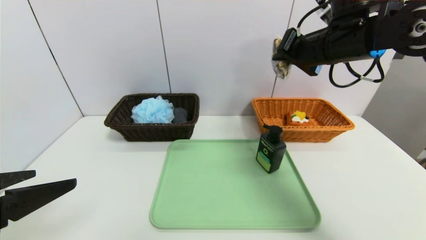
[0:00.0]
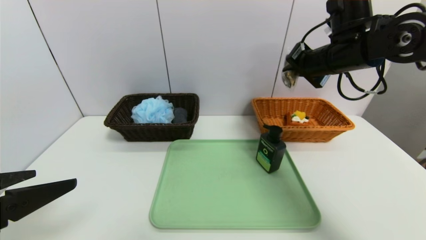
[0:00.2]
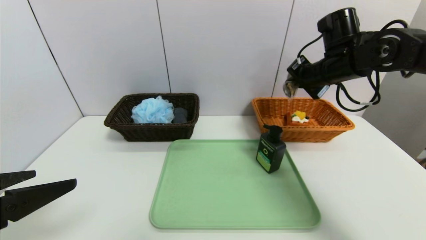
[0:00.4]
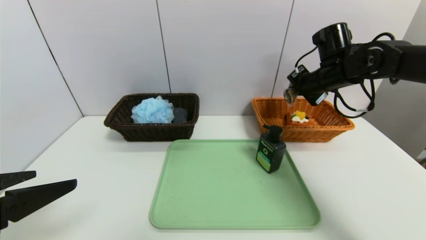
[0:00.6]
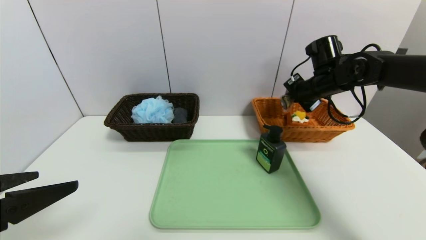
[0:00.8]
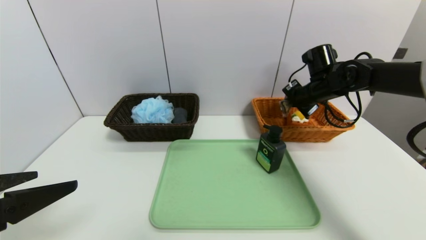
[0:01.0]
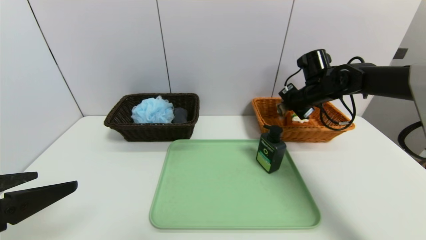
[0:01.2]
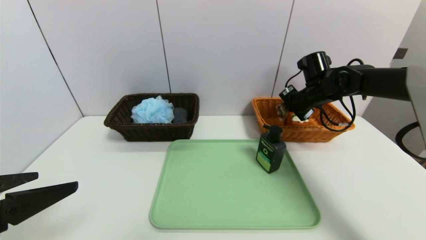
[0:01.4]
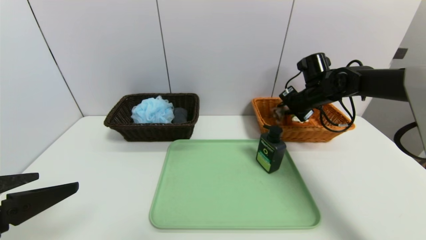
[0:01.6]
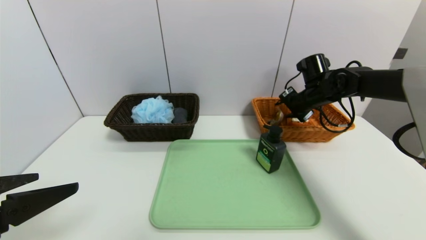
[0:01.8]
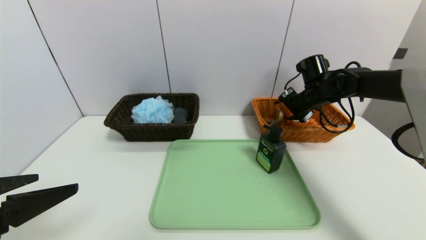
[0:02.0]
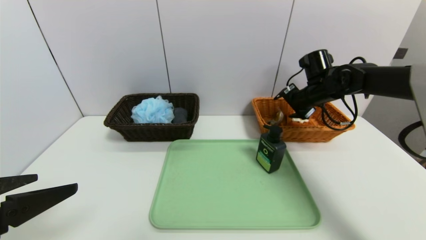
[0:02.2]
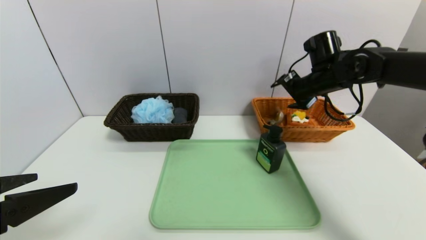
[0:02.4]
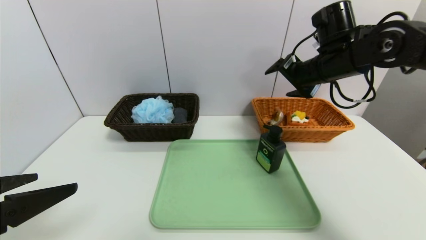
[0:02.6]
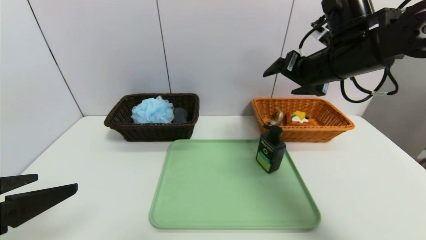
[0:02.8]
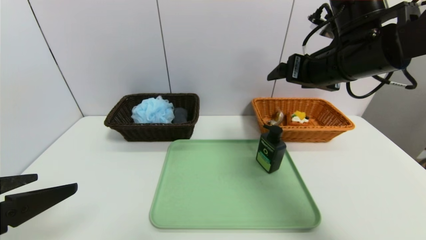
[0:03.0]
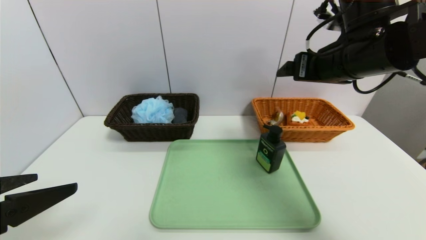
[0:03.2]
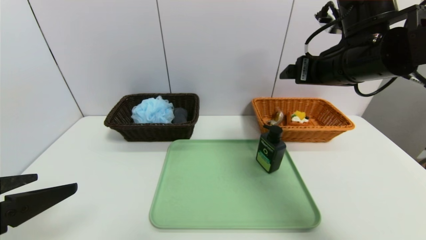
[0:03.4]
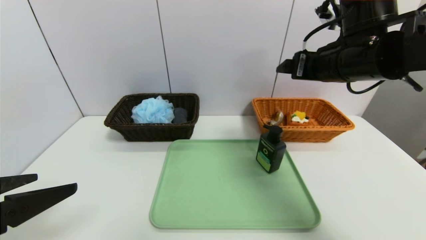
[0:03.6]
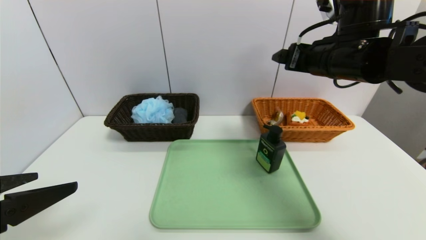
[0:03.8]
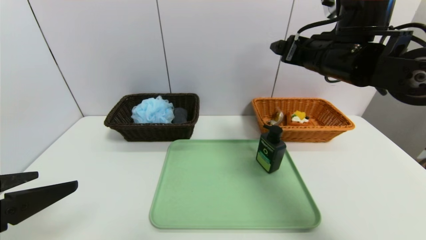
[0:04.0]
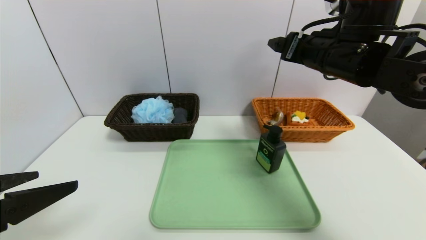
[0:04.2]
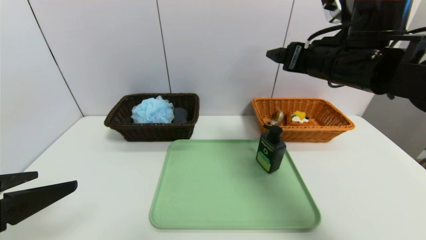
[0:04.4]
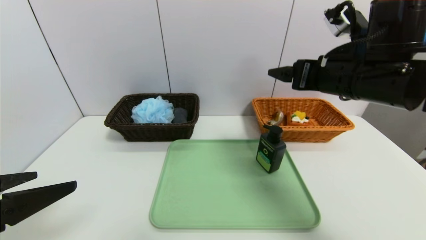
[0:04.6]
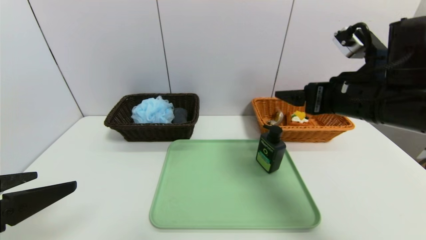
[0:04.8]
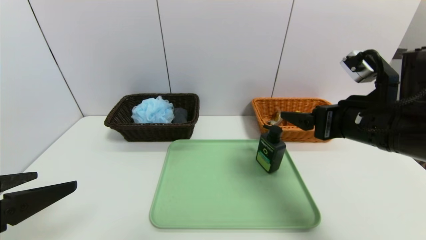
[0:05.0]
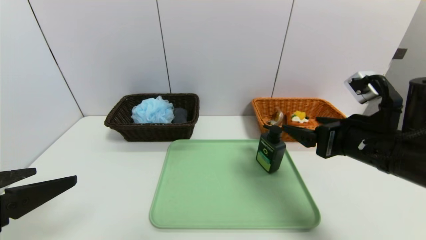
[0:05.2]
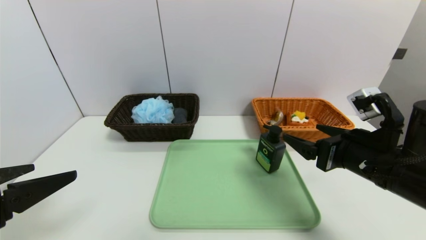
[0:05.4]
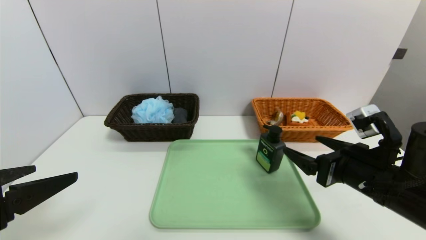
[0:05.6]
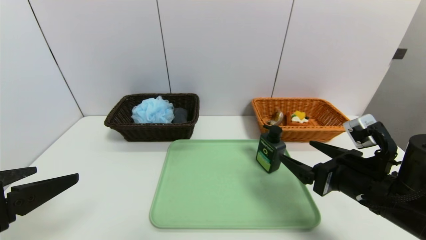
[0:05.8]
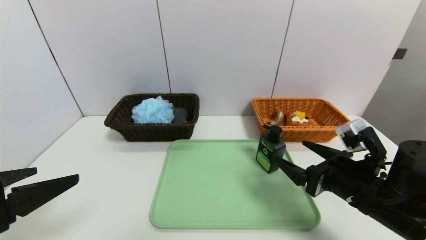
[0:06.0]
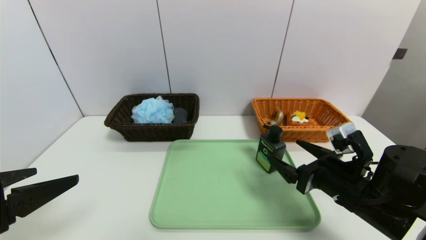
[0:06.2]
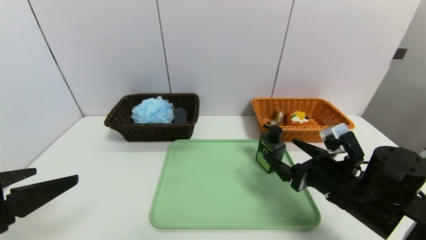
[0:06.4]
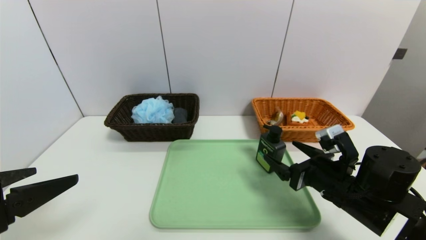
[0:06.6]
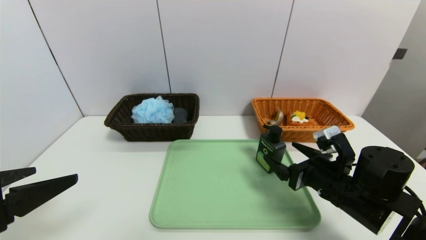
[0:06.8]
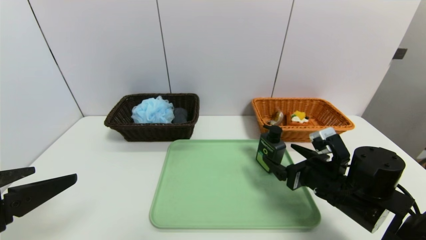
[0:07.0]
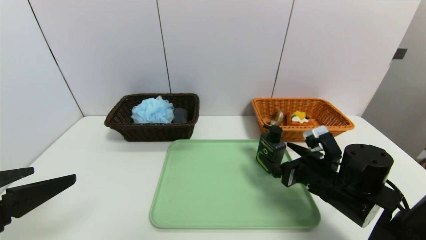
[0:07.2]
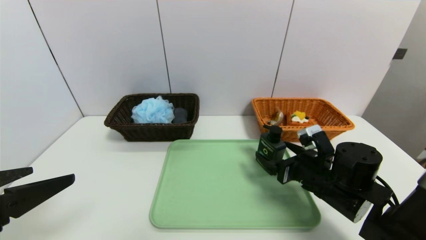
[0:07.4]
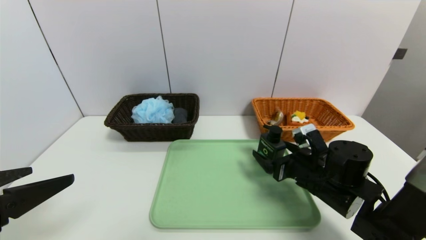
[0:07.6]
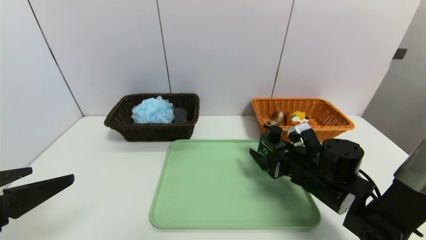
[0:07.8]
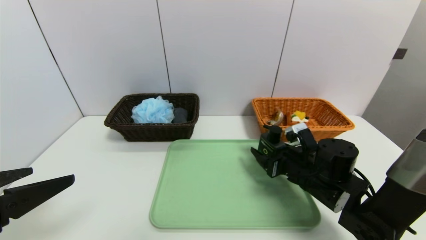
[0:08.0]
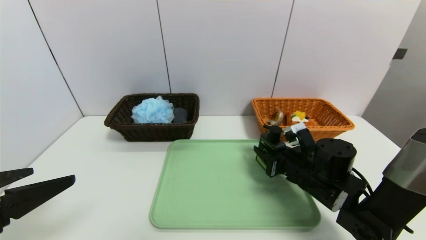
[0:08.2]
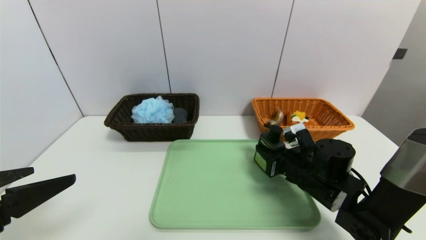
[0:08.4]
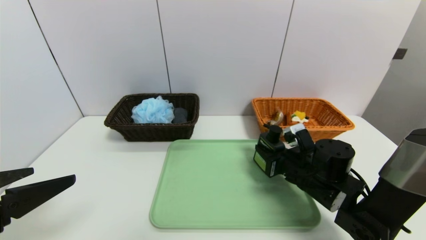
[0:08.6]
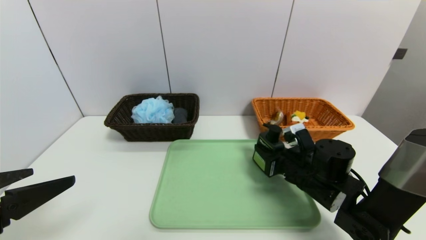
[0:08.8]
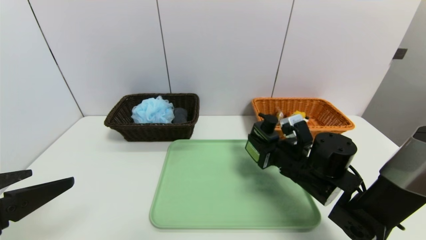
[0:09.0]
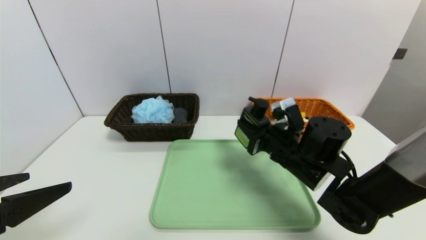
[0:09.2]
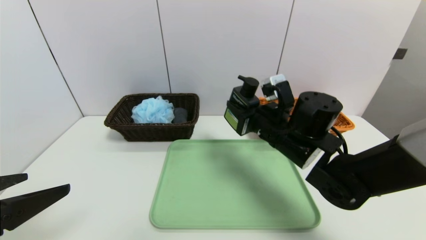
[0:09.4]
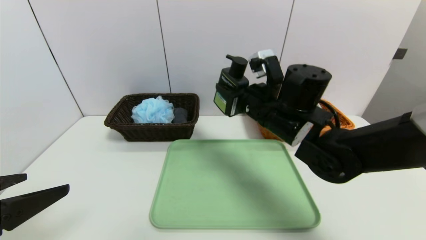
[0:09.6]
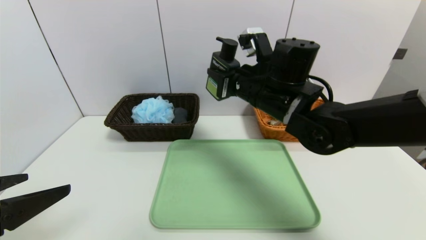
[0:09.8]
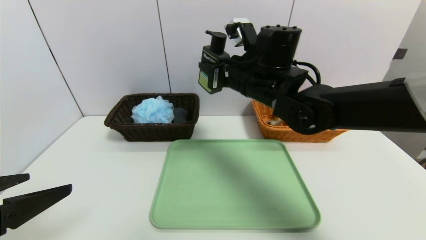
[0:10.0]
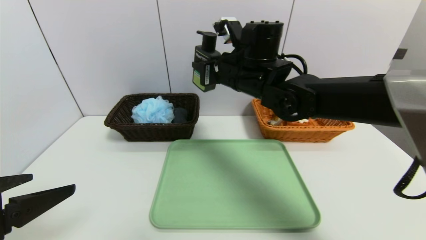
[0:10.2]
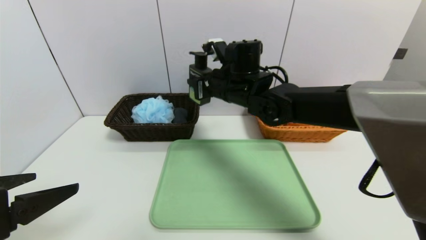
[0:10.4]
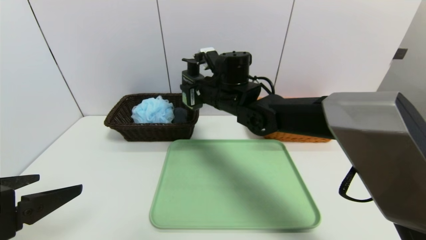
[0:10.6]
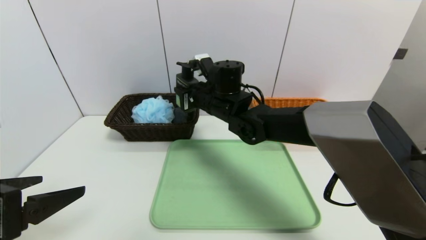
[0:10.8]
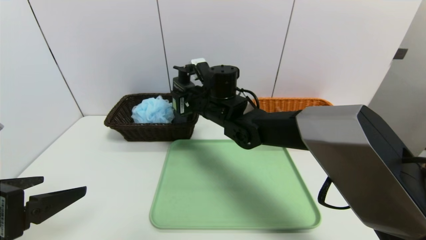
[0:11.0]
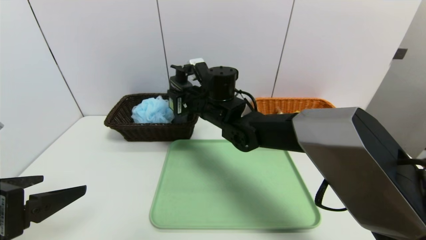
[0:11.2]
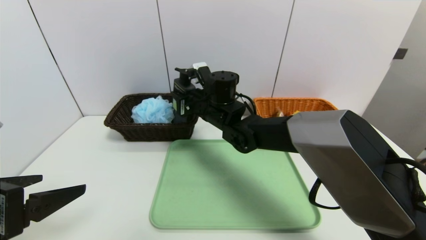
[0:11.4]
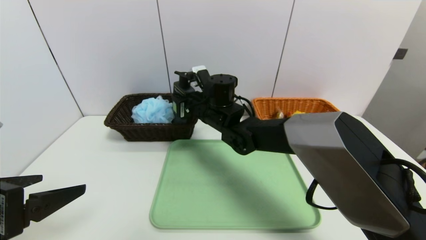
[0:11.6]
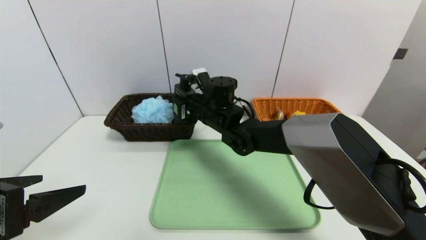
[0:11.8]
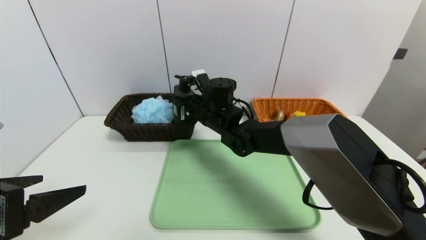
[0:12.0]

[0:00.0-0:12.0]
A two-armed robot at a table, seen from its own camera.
Task of the whole recording: place the food in the right basket with the right gripper, and place the non food items in the left basket with the left gripper.
Step, 0:00.0 to 0:02.4: Grasp the chocolate and put it in the right basket.
0:00.0 to 0:01.6: The right gripper travels downward and forward by roughly 15 cm.
0:01.6 to 0:03.0: The right gripper shifts some 20 cm backward and upward, and opens.
0:04.4 to 0:06.0: The right gripper is displaced downward and backward by approximately 20 cm.
0:06.0 to 0:07.6: The right gripper shifts roughly 10 cm forward and downward.
0:07.6 to 0:09.0: The right gripper closes up.
0:09.0 to 0:10.4: The right gripper goes some 20 cm to the left, upward and forward.
0:10.4 to 0:12.0: The right gripper shifts approximately 5 cm downward.

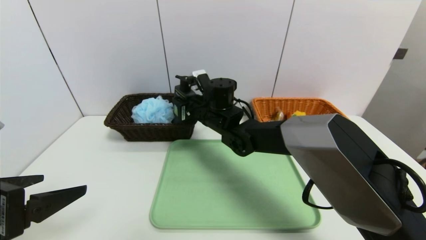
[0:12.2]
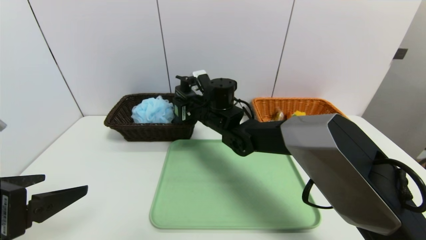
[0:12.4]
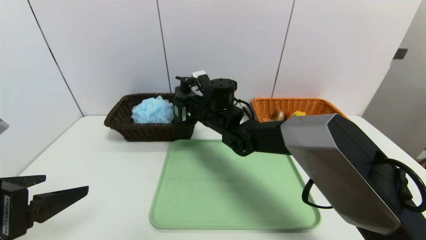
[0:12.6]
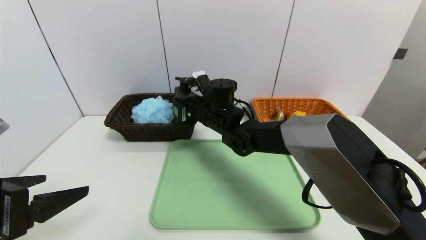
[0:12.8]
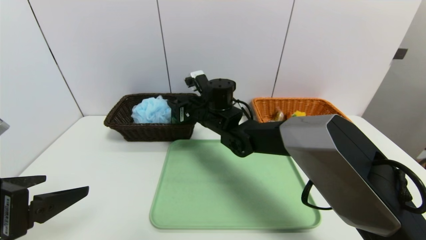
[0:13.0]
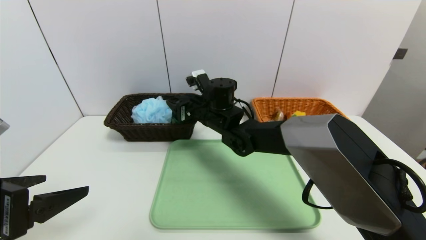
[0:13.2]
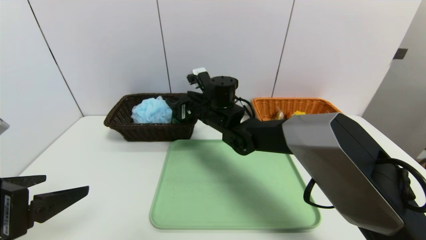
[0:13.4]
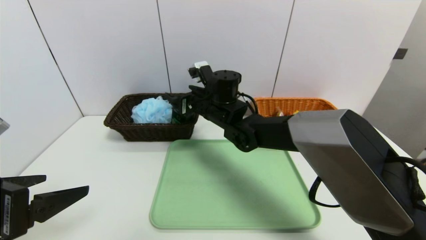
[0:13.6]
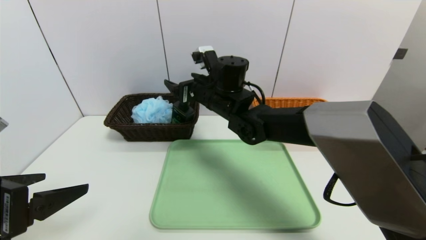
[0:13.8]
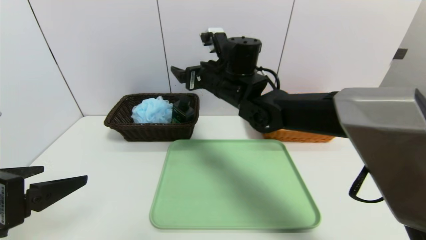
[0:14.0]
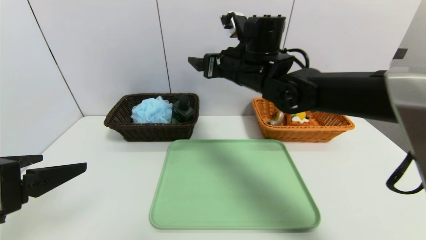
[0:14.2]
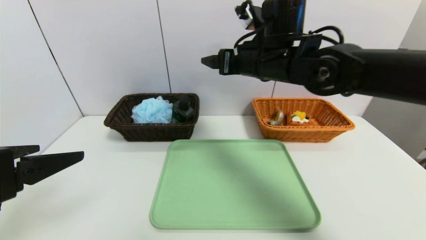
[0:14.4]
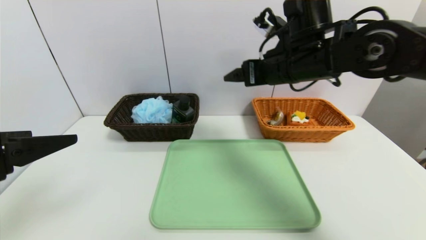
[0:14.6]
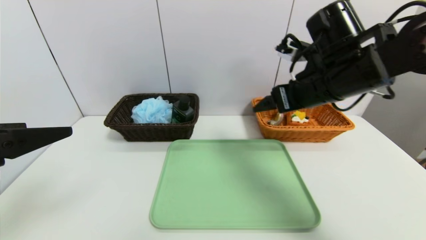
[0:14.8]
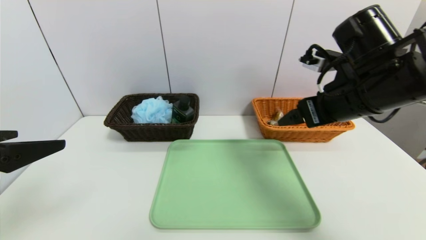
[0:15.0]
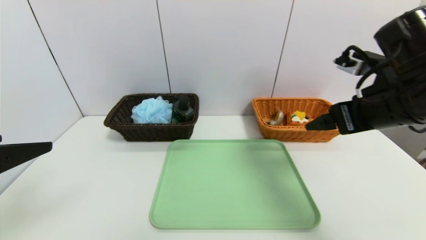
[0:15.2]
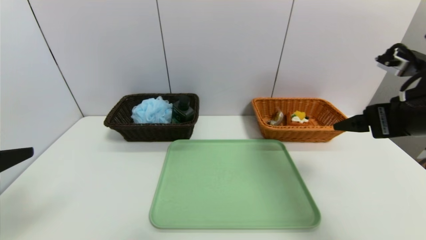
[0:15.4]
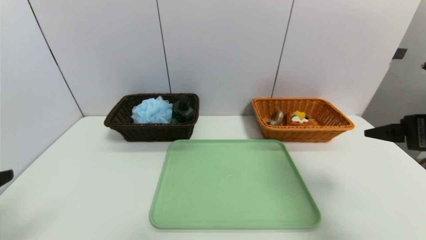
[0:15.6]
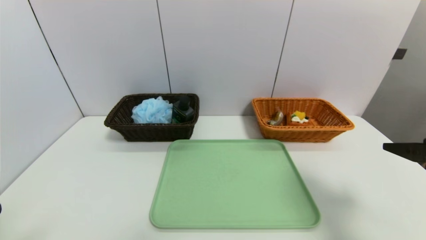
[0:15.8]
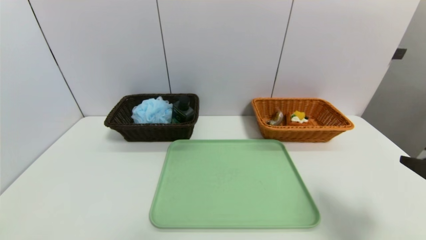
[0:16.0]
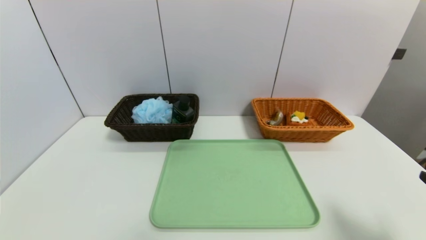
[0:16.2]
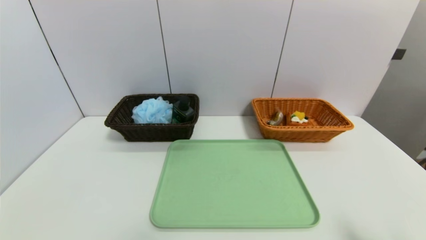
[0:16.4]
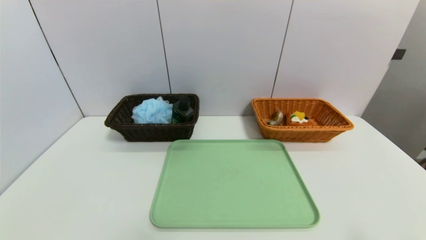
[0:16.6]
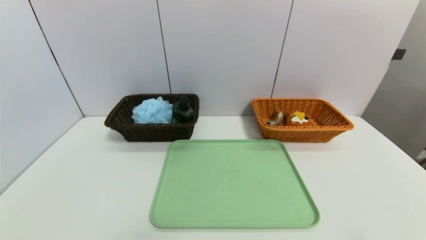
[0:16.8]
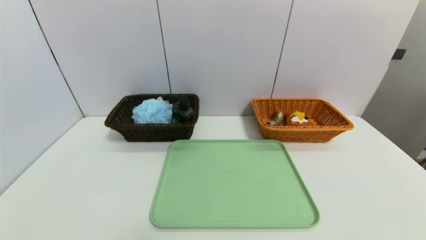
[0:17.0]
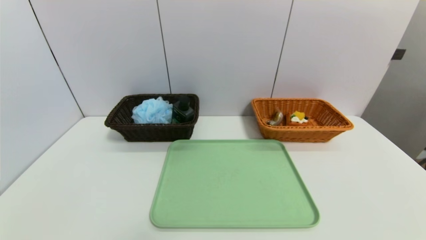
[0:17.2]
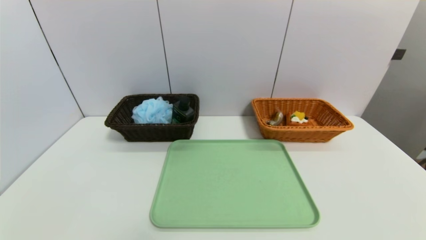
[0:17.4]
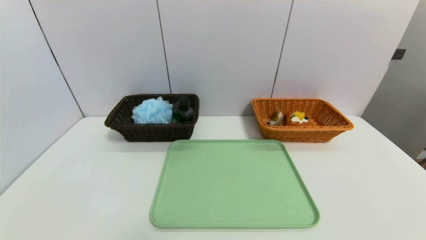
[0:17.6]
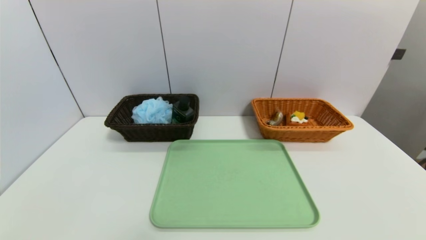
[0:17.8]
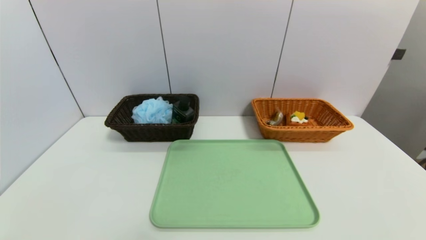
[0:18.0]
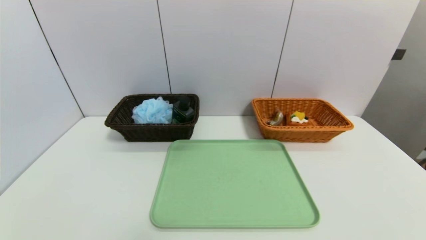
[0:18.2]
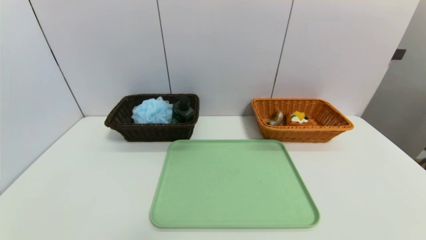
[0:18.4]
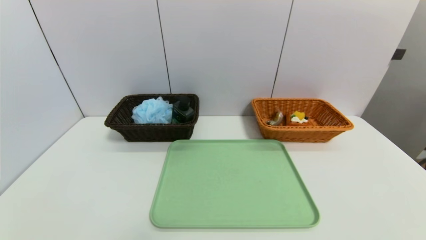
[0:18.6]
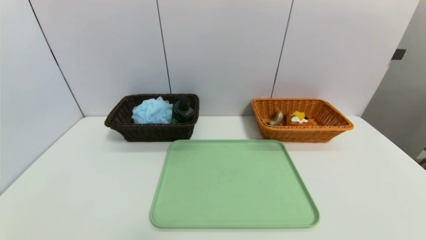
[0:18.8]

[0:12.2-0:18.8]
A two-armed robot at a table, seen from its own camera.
Task of the whole recording: place the food in the right basket with the right gripper, and place the non food items in the left basket with the left gripper.
0:12.2 to 0:13.8: The right gripper goes some 5 cm upward, and opens its fingers.
0:13.8 to 0:15.4: The right gripper heads to the right and backward, covering about 35 cm; the left gripper shifts by about 5 cm.
0:15.4 to 0:17.2: The right gripper shifts some 30 cm backward and downward. Meanwhile the left gripper is displaced downward and backward by about 20 cm.
